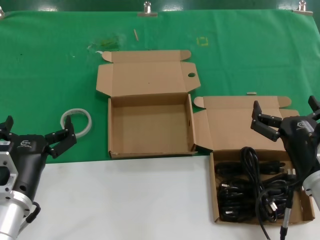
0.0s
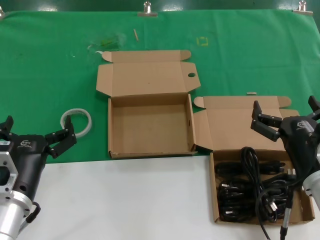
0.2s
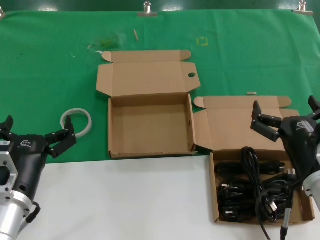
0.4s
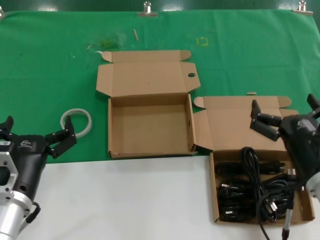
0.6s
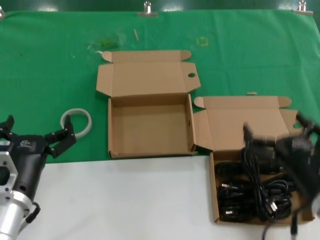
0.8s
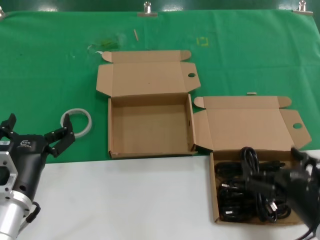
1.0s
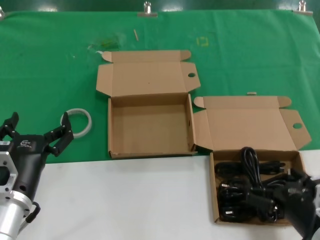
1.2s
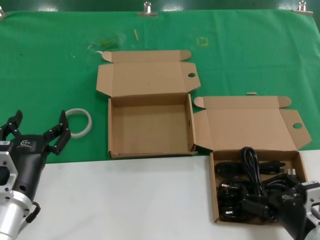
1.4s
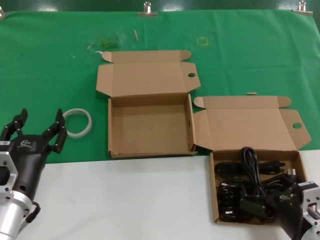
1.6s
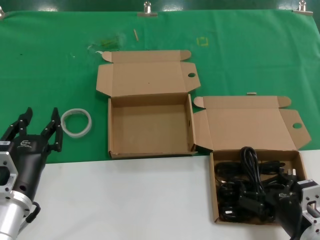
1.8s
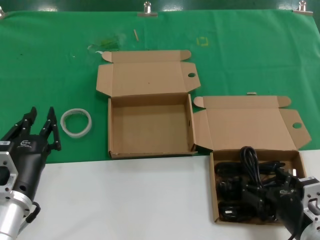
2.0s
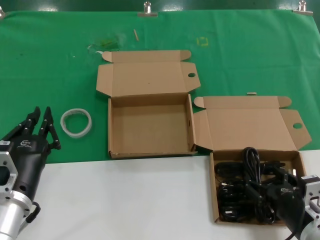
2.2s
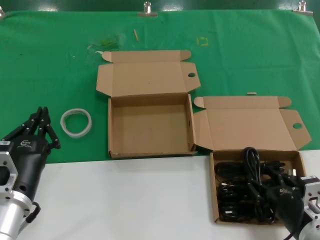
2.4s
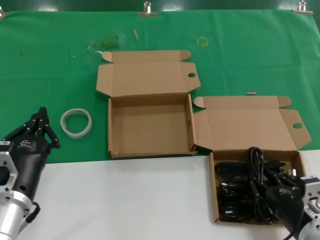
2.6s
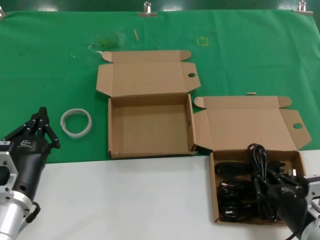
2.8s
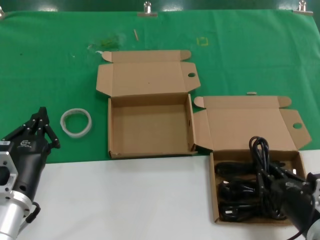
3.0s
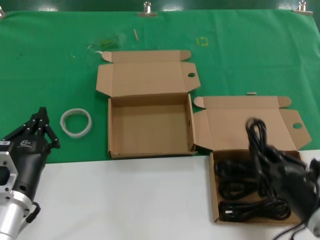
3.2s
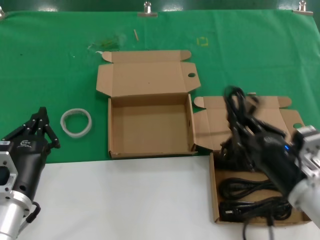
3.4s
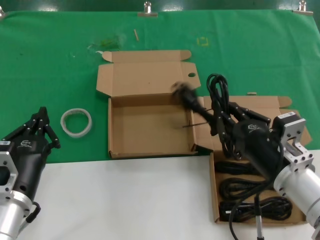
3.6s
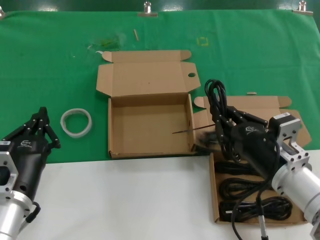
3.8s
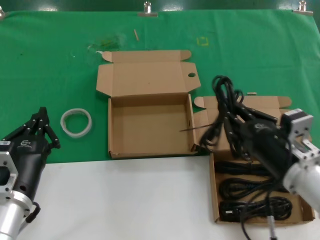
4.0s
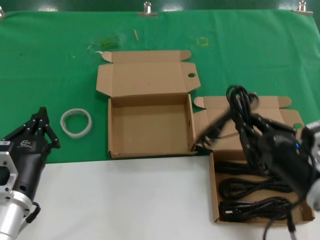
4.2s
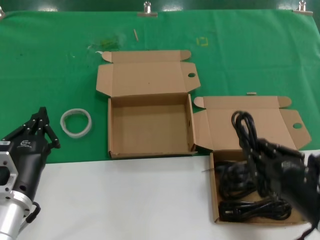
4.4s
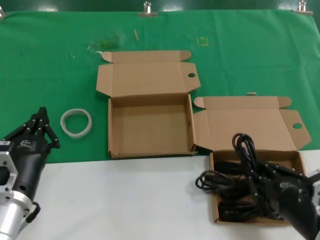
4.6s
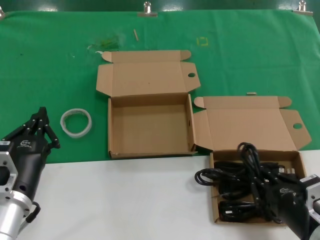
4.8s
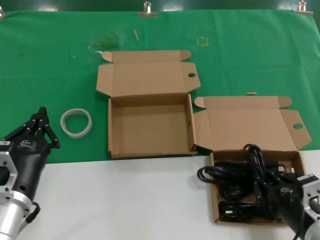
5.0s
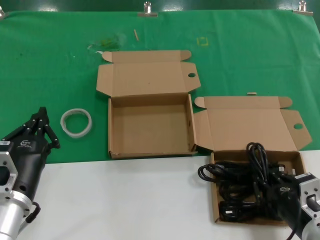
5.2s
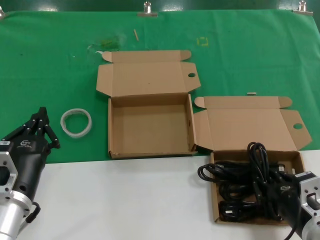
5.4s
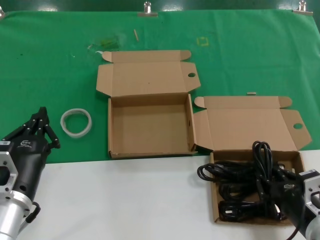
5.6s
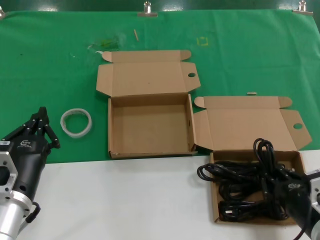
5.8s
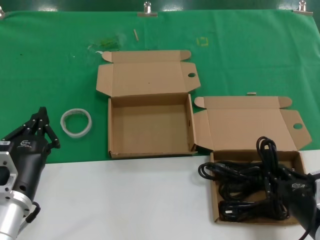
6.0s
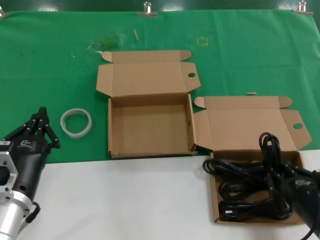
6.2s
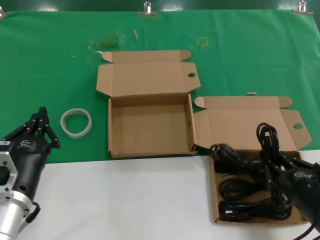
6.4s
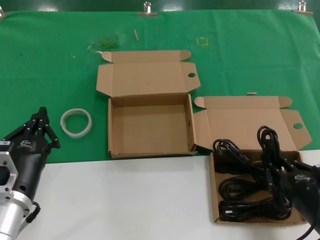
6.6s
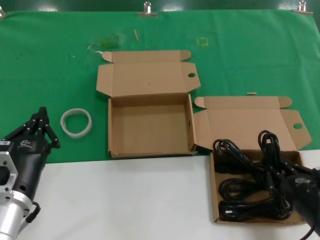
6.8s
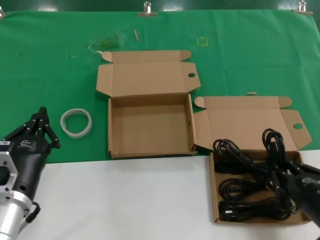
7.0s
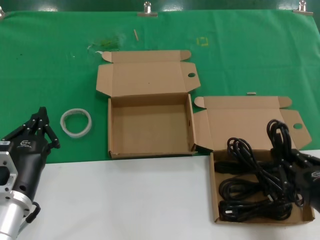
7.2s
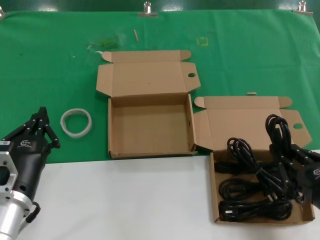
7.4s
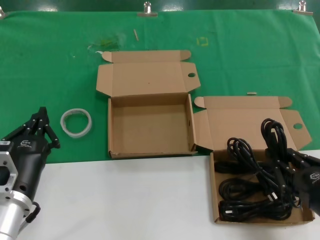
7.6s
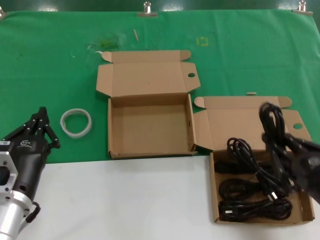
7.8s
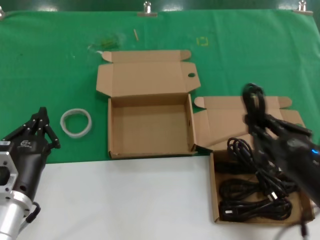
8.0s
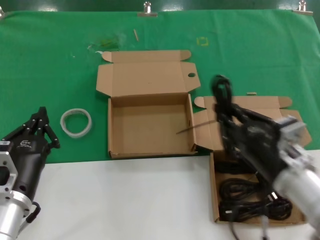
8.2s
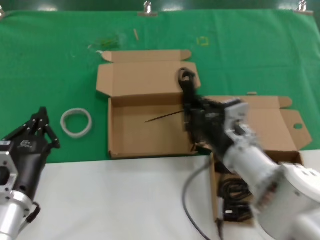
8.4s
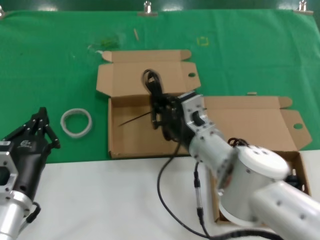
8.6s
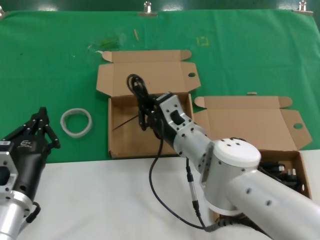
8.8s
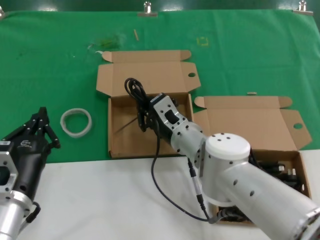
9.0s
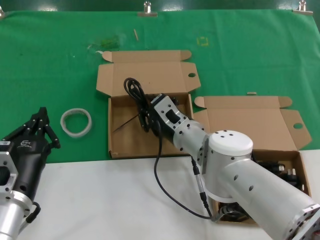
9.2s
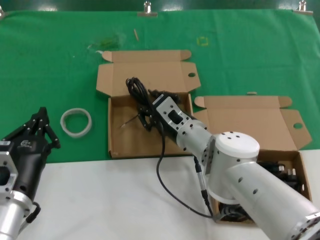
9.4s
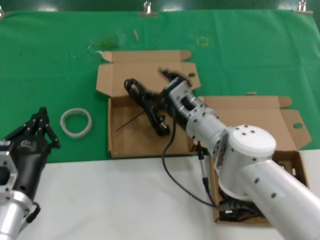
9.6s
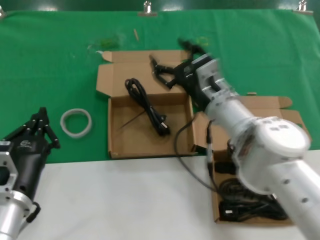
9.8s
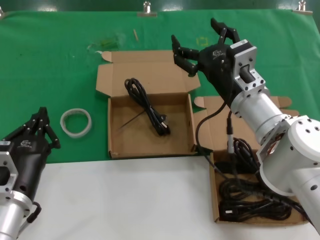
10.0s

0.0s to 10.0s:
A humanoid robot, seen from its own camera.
Task of the whole recording: Pick up the power cord from the box containing it and place it in another box.
Step, 0.0s to 6.0s: Grasp the data cable.
Step, 6.2s to 9.4s: Place the data cable in the another box.
0.0s to 1.4s: The right hand travels downward and backward by some 10 cm.
1.4s to 2.8s: The hands stay close to where they were, moving slightly.
2.8s to 4.2s: The right hand heads upward, covering roughly 10 cm.
4.2s to 5.8s: The right hand heads downward, covering approximately 10 cm.
5.8s to 7.2s: The right hand moves upward, roughly 5 cm.
7.2s to 8.6s: The right hand shifts some 25 cm to the left and forward.
8.6s to 10.0s: The right hand is displaced upward and to the right by approximately 10 cm.

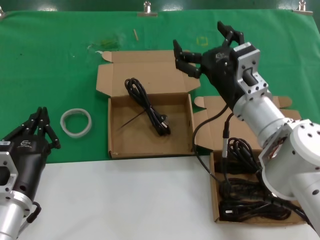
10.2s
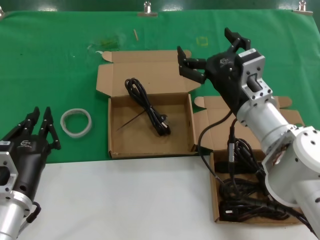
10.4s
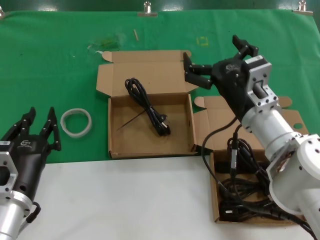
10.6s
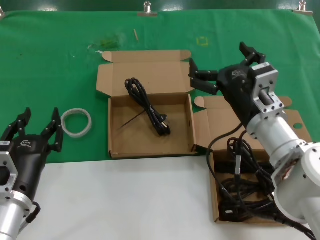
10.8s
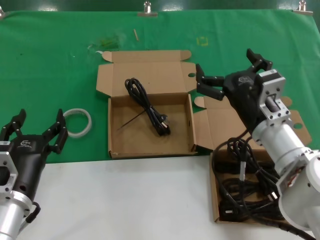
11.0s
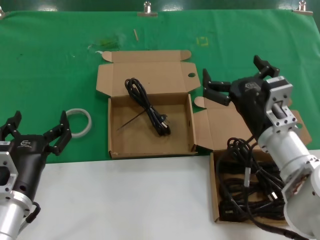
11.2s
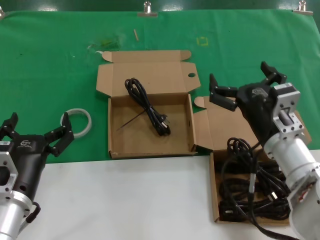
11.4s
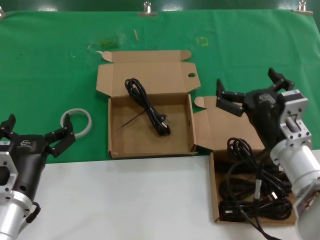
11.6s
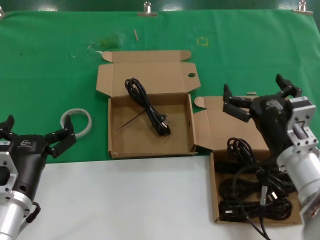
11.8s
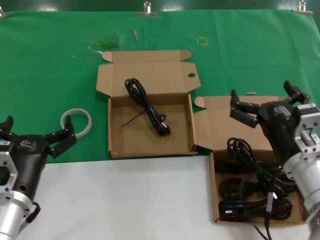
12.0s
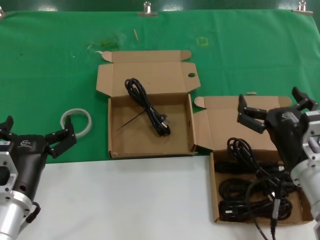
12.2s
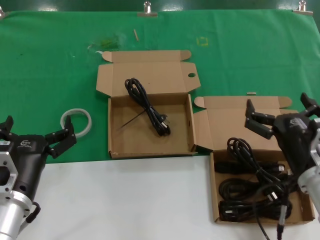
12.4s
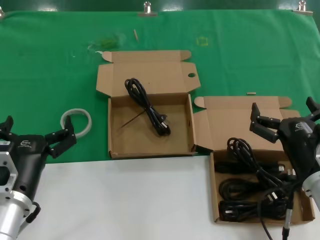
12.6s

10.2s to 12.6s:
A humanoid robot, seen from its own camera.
Task of the whole recording: Pick up the power cord from the box containing it and place it in another box.
10.2s to 11.4s: The right hand goes roughly 5 cm backward.
11.4s to 12.6s: The right hand goes roughly 5 cm backward.
